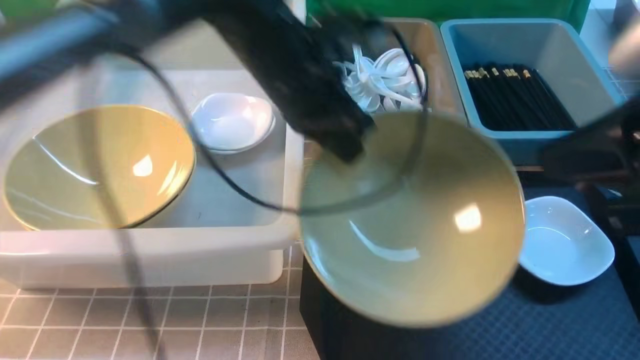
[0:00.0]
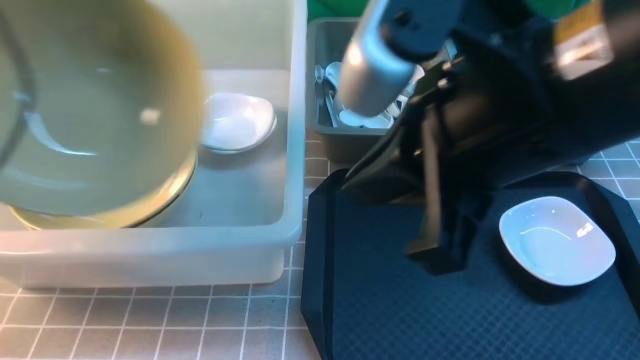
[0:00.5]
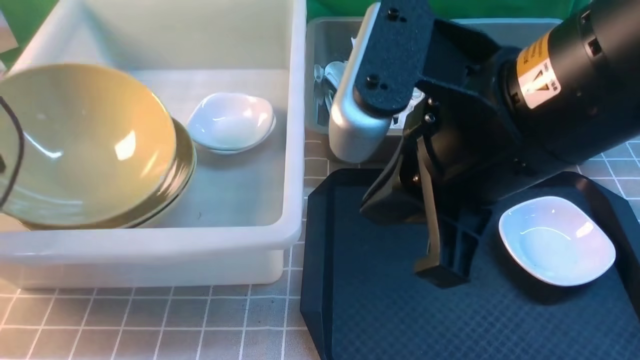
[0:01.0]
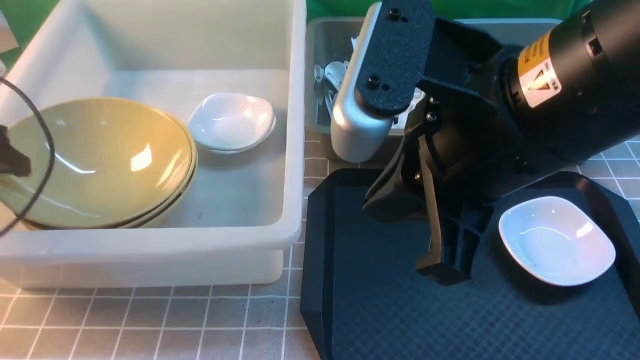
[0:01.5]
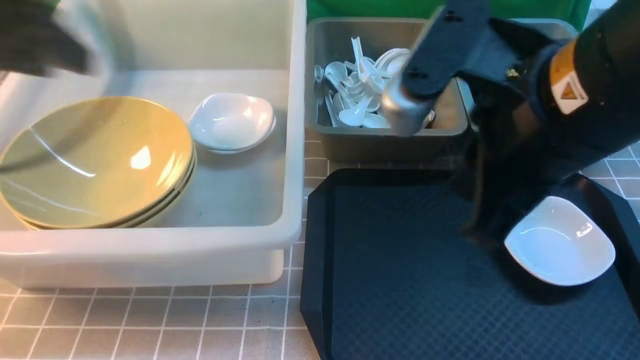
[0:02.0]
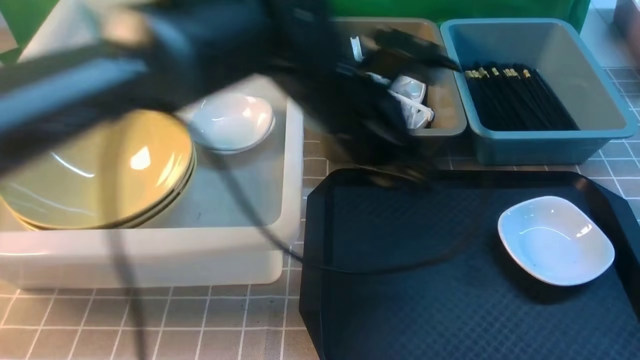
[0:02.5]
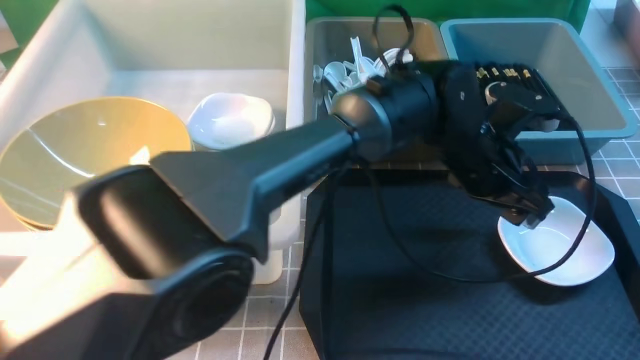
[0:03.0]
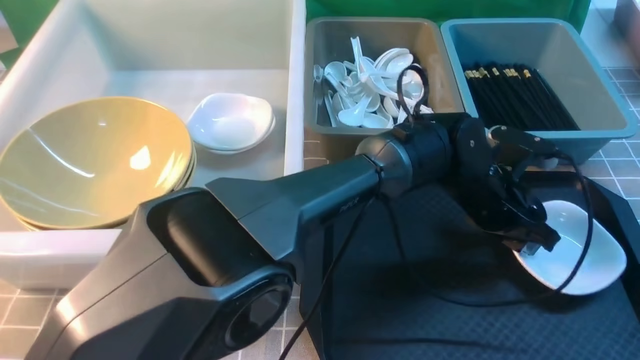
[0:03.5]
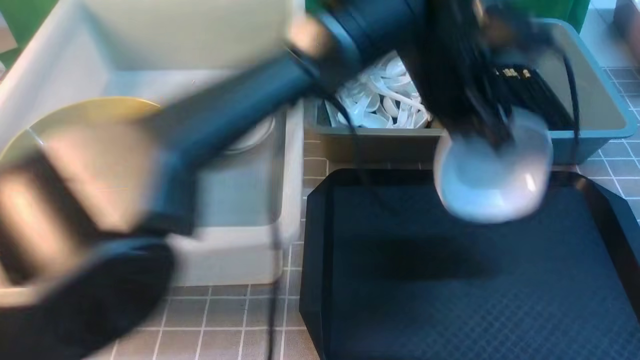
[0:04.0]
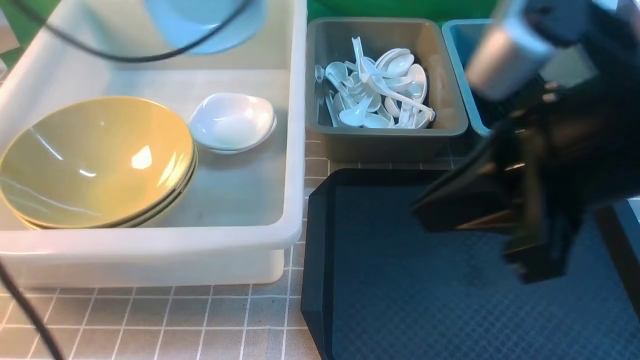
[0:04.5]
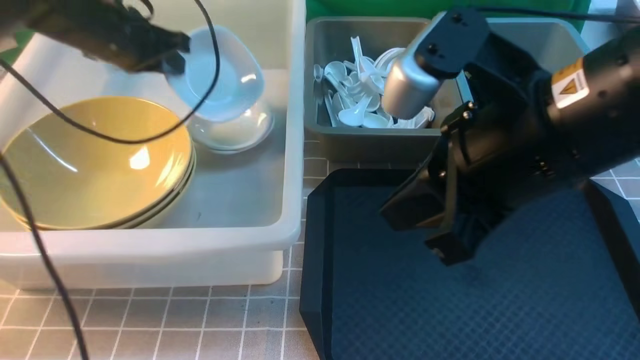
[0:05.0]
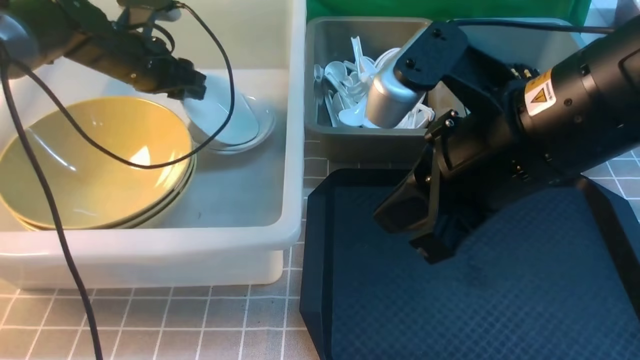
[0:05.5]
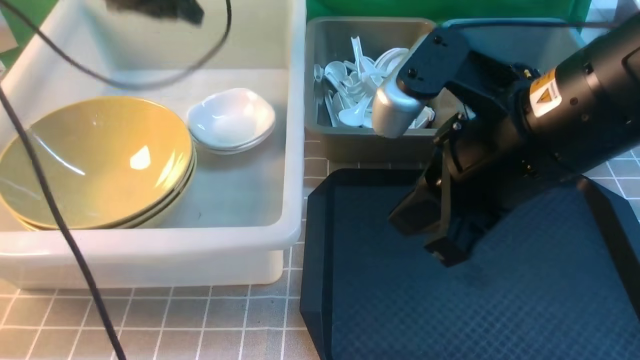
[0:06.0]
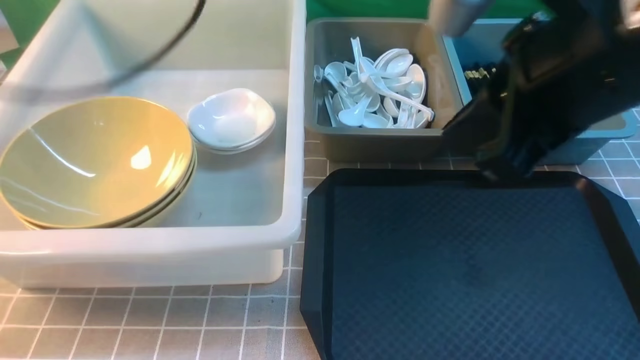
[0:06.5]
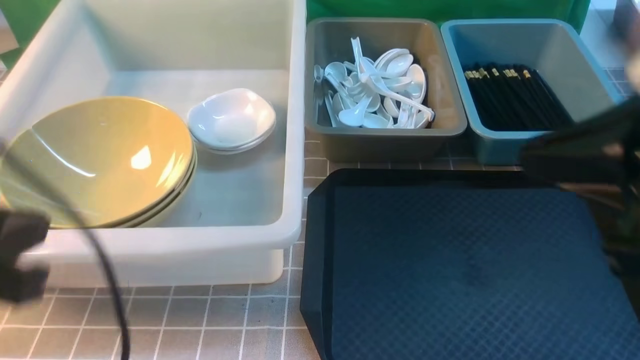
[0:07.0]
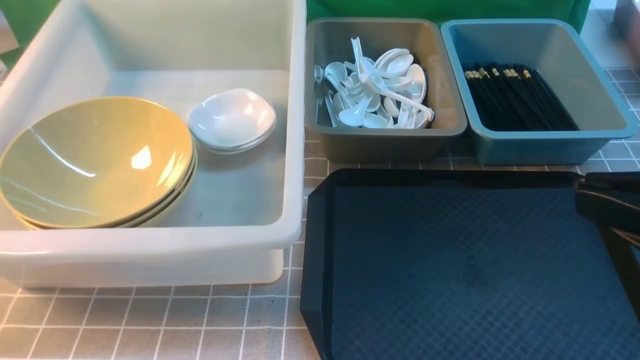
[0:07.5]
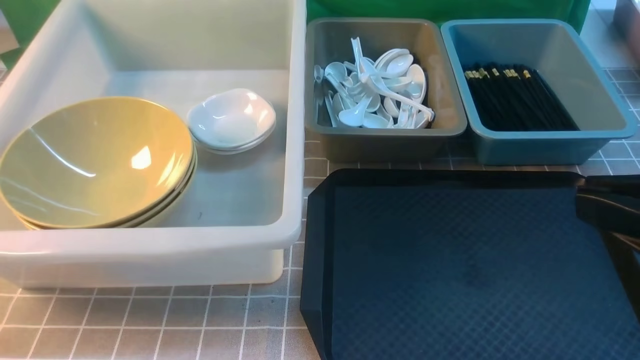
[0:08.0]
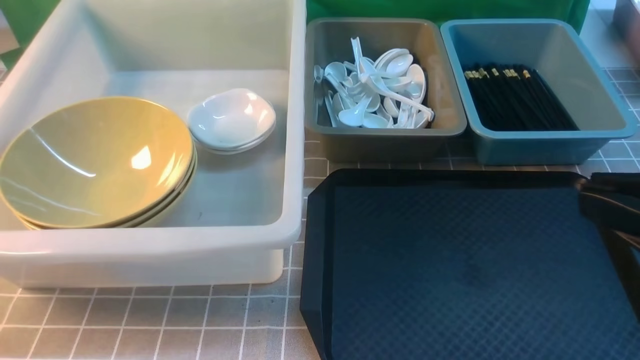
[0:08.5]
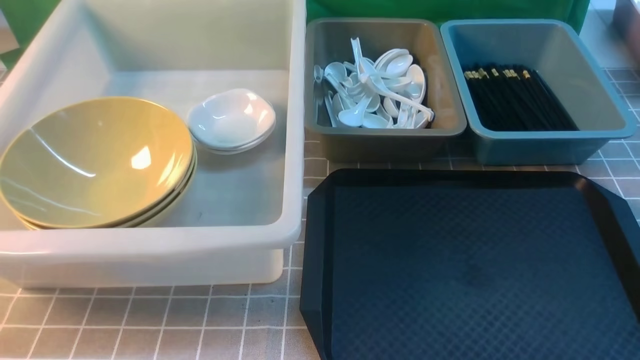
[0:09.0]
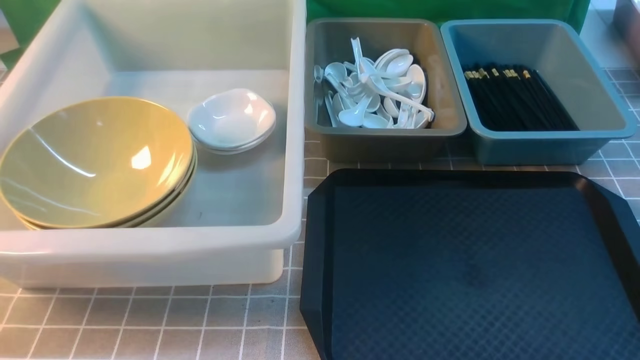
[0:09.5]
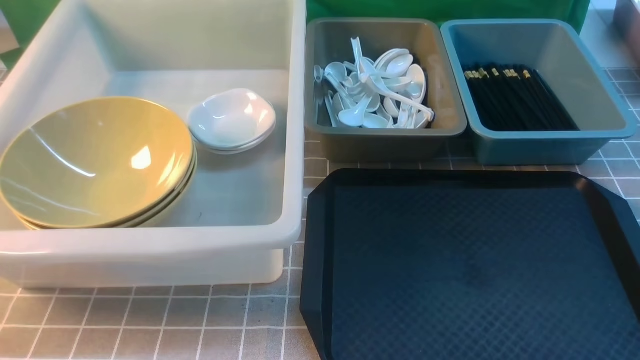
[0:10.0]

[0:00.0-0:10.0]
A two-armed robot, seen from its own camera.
Task of the whole recording: on grey table put chopsticks spoon bowls plates into blue grey white boxes.
Step, 0:00.0 to 0:01.5: use the left arm to put the noodle bowl into the large storage box on the left.
Step, 0:02.0 to 0:03.5: use the left arm to grab the plate.
Step, 0:04.0 to 0:06.0: use the left arm to put the plate into the large storage box on the left.
0:00.0 to 0:02.0: The left gripper is displaced to the left by some 15 cm, and opens its fingers. Meanwhile the right gripper travels to the left by some 5 cm.
0:02.0 to 0:04.0: The right gripper shifts about 15 cm to the right and backward, while the left gripper moves to the right, some 30 cm, and closes its fingers.
0:04.0 to 0:06.0: The left gripper shifts about 30 cm to the left, and opens. Meanwhile the right gripper heads to the left and forward, covering about 15 cm.
0:06.0 to 0:08.0: The left gripper goes roughly 40 cm backward, and closes its fingers, while the right gripper shifts about 15 cm backward and to the right.
0:08.0 to 0:10.0: The right gripper goes some 20 cm downward and to the right.

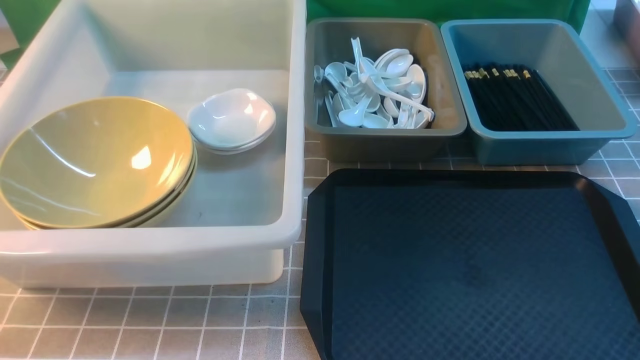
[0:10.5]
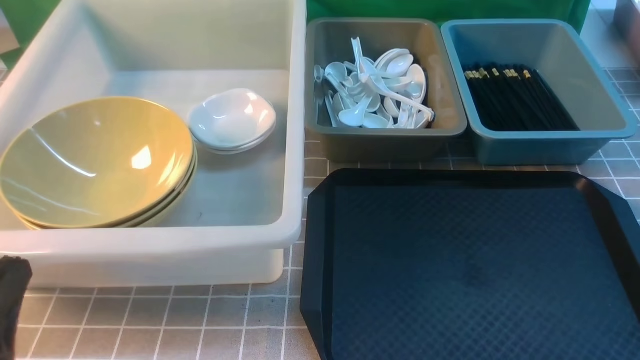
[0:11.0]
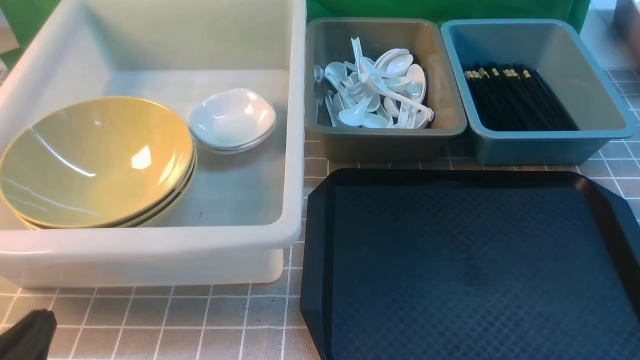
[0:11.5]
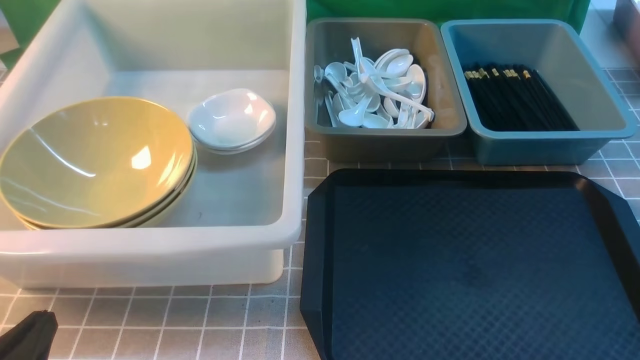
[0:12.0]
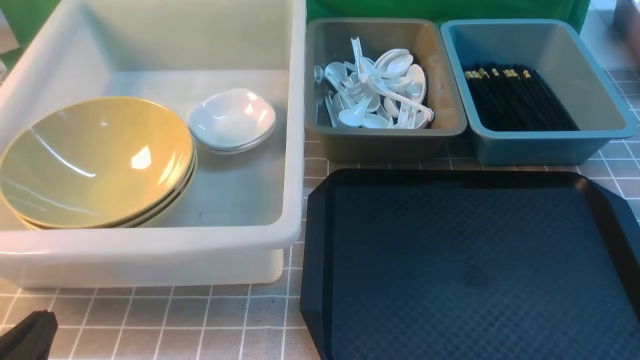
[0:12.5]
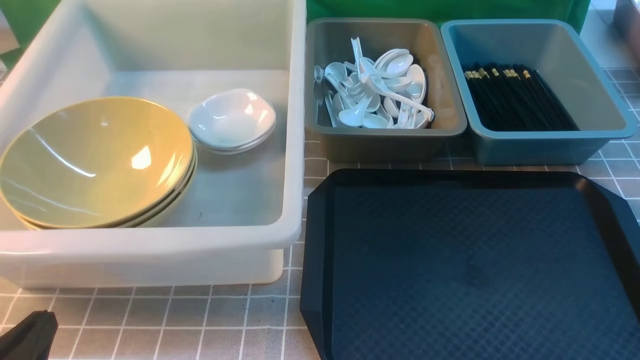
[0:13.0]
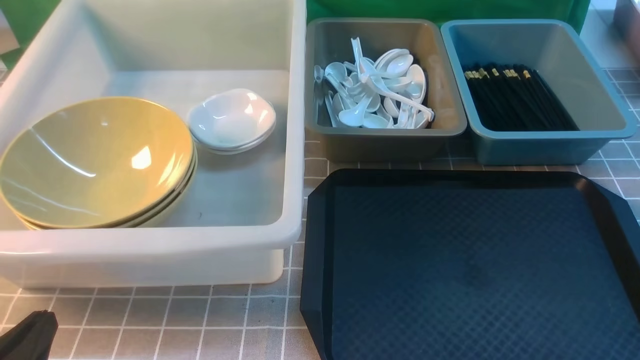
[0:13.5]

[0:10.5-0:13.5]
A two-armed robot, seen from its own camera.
Task of the whole recording: on grey table put chopsticks spoon bowls plates into blue grey white boxes.
0:10.5 to 0:12.0: The left gripper shifts about 10 cm downward.
0:12.0 to 0:13.5: The two grippers keep their place.
